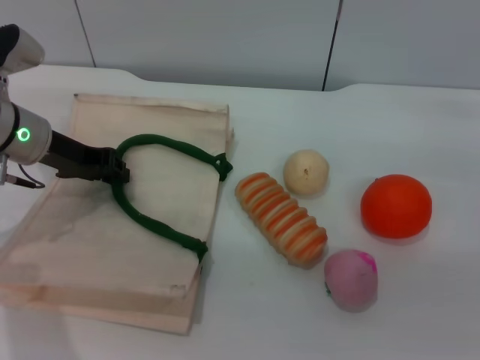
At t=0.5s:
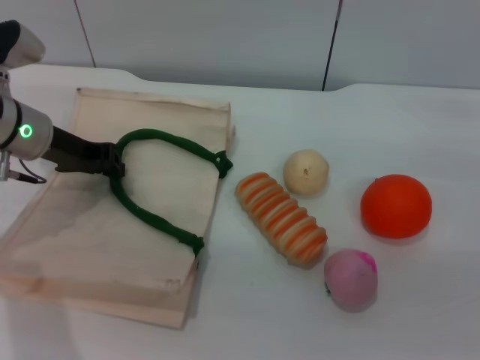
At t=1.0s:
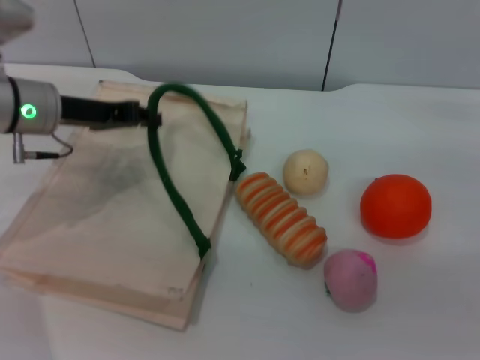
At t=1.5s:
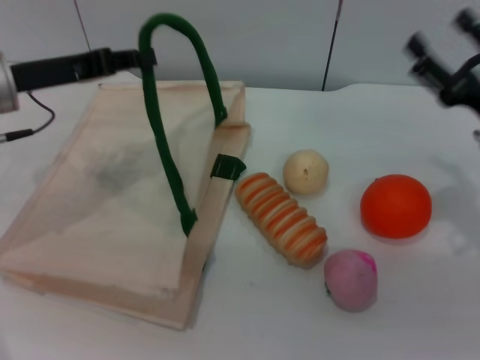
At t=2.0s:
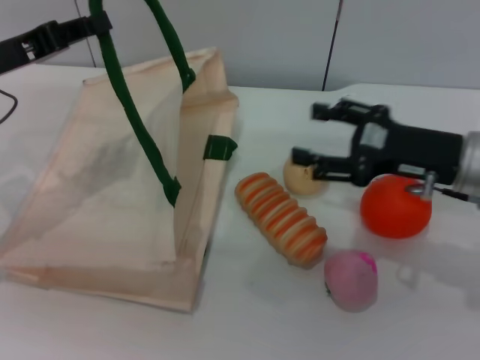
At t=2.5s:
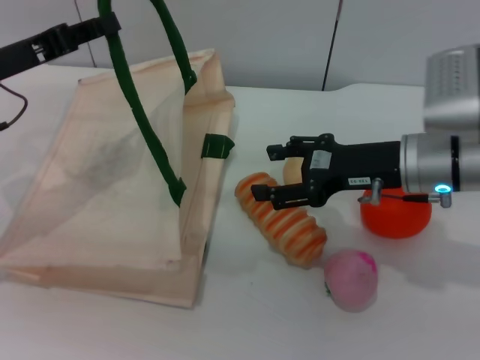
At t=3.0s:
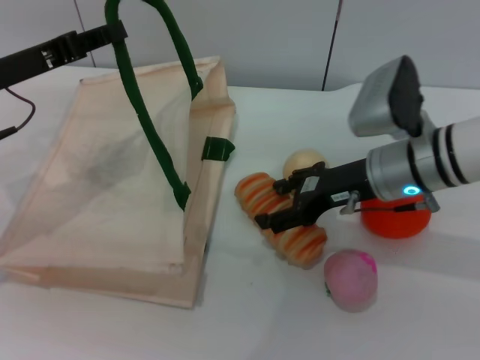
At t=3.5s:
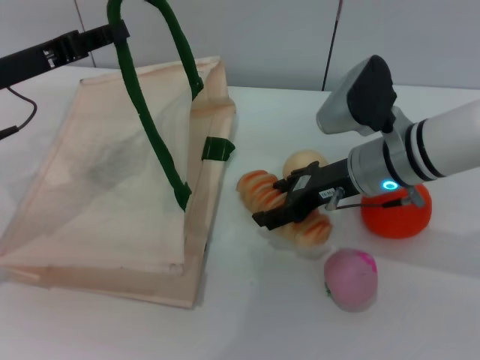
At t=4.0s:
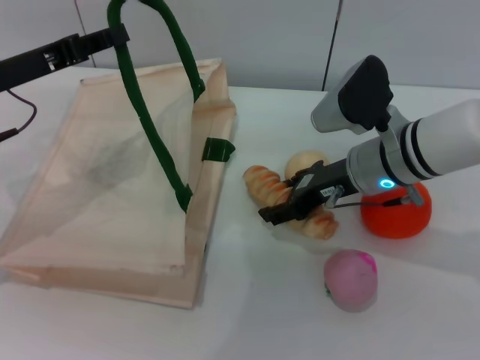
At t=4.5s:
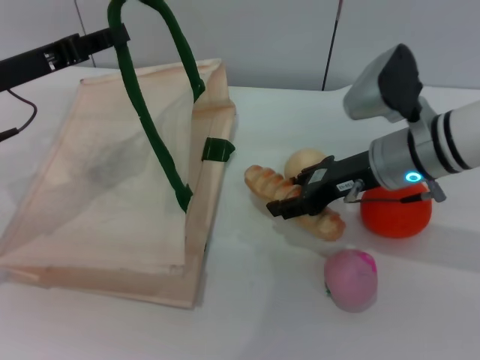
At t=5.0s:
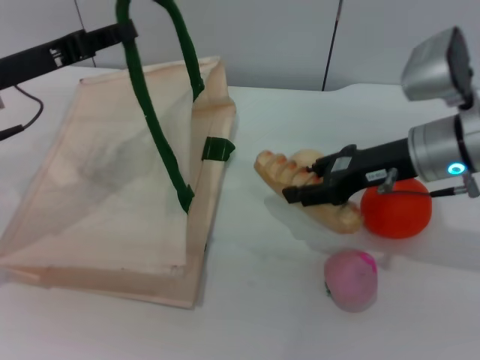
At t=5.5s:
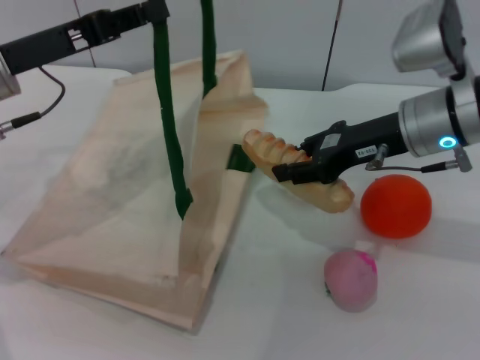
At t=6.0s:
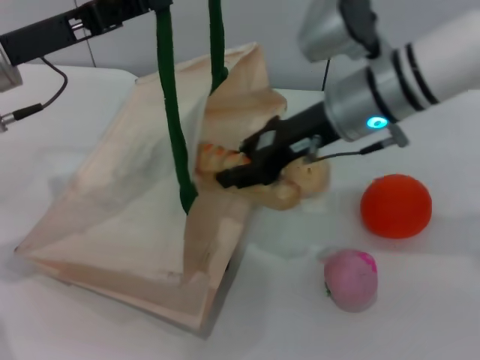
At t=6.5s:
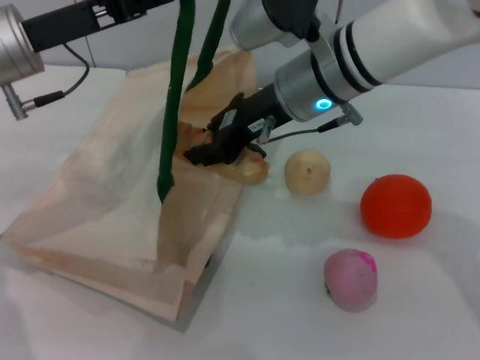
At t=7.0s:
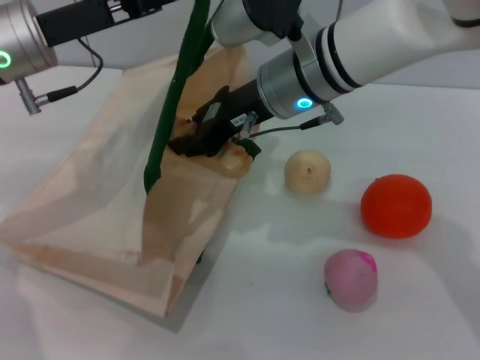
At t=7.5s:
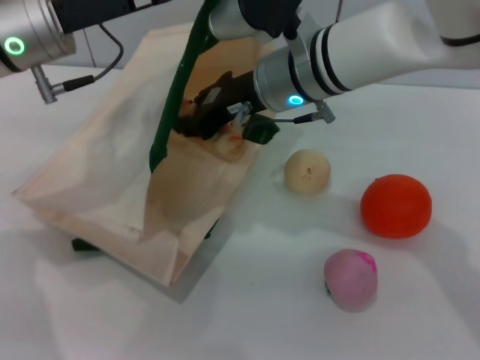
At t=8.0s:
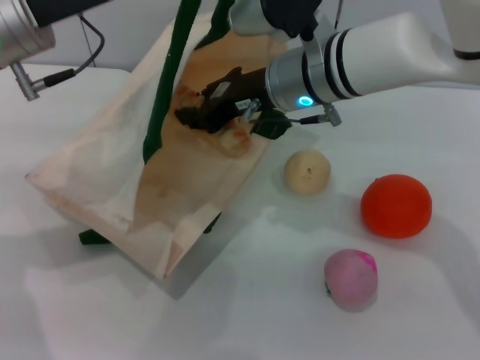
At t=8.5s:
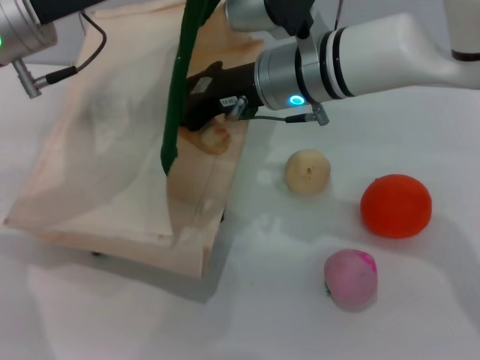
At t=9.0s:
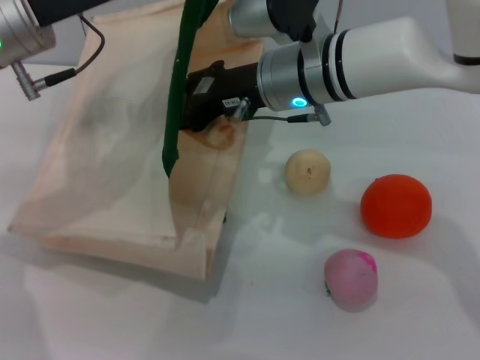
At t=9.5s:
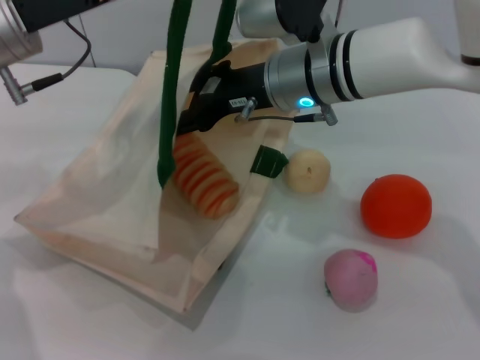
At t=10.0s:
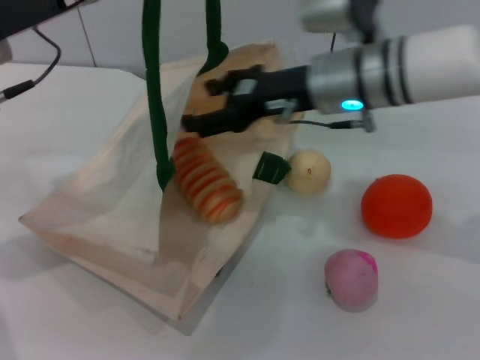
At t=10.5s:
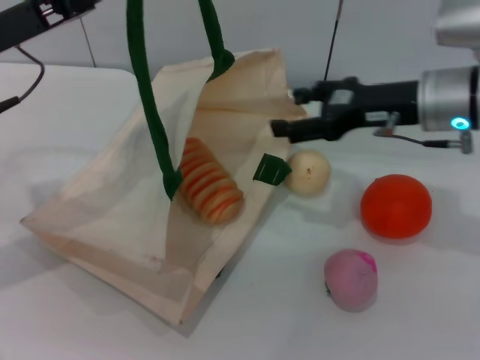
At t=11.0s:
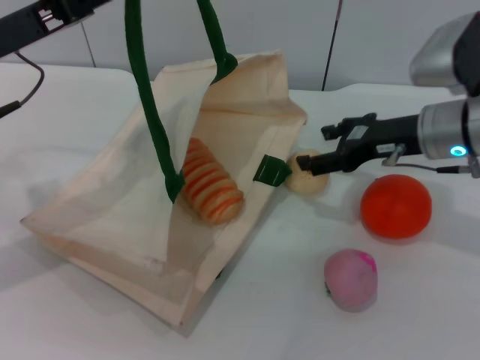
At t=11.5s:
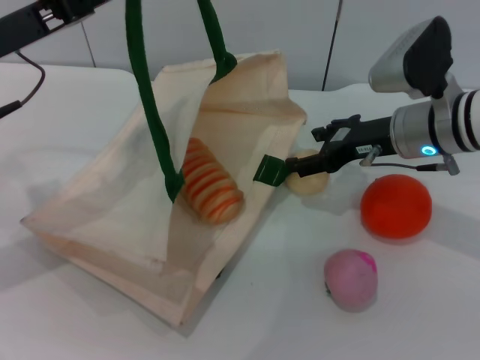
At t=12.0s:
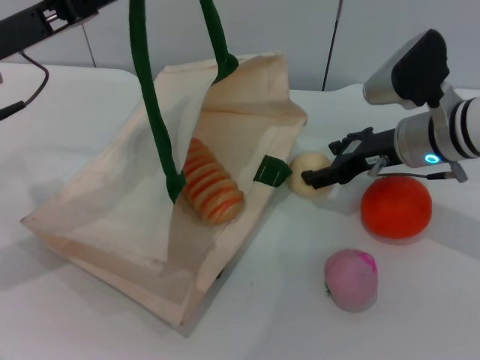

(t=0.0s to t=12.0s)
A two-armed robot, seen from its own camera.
Task of the whole recording: pick up the bread and egg yolk pastry from the table and place it in the white handbag.
Step, t=1.5s - t=4.5s: Pick up the bread with the right gripper.
Step, t=5.0s - t=9.5s: Place the bread into the woven bag with the right gripper.
t=0.0s - t=2.0s: The left gripper moves approximately 10 cm, and closes up, while the right gripper goes about 10 cm to the left.
t=2.0s - t=4.0s: The right gripper travels to the left by approximately 10 cm.
t=4.0s - t=6.0s: The right gripper travels upward by roughly 10 cm, and closes.
t=6.0s - t=8.0s: The right gripper travels to the left by some 5 cm.
t=8.0s - t=10.0s: The right gripper opens up.
t=10.0s - t=12.0s: The right gripper travels to the right and downward by some 10 cm.

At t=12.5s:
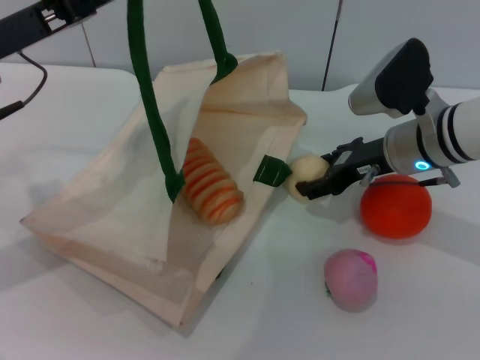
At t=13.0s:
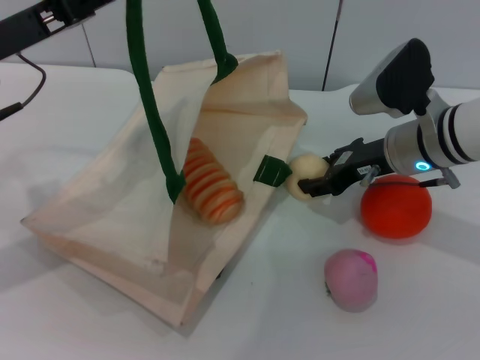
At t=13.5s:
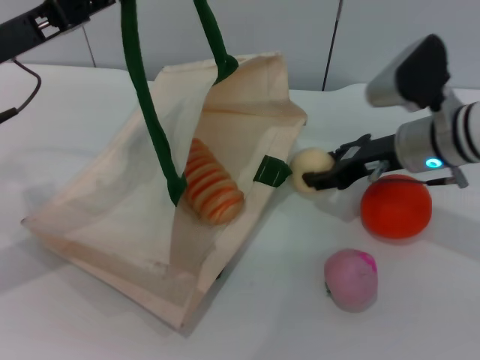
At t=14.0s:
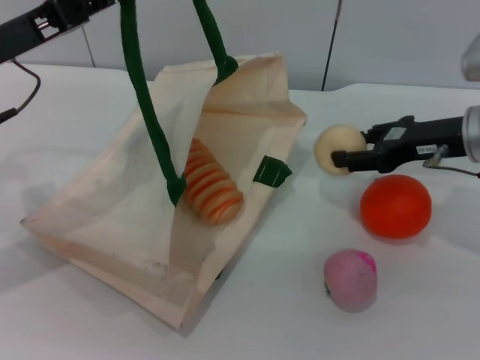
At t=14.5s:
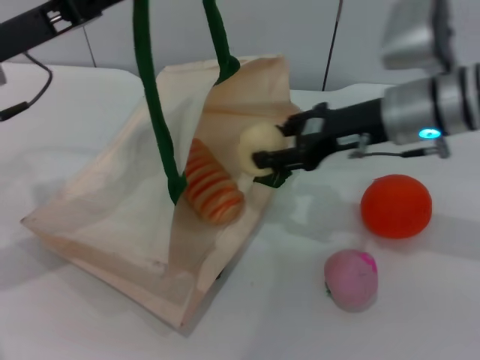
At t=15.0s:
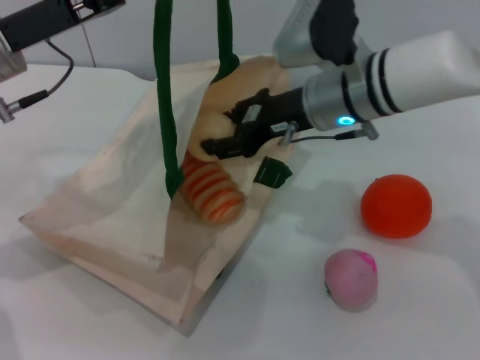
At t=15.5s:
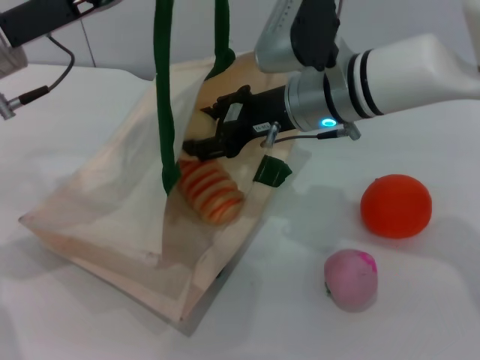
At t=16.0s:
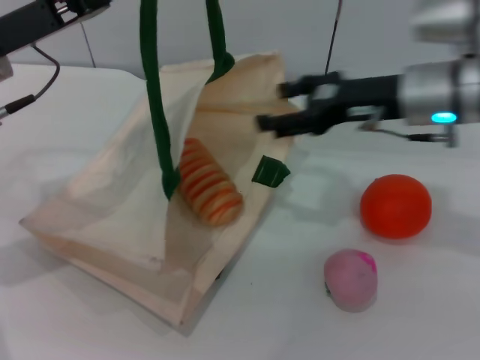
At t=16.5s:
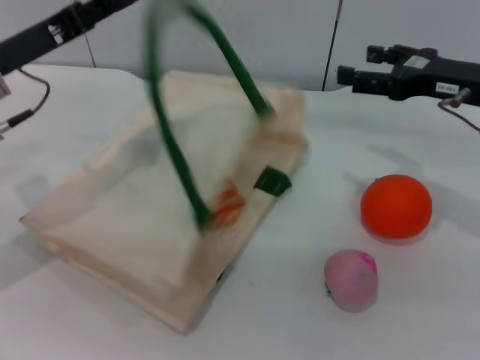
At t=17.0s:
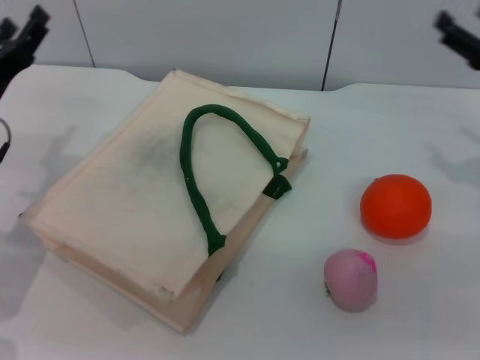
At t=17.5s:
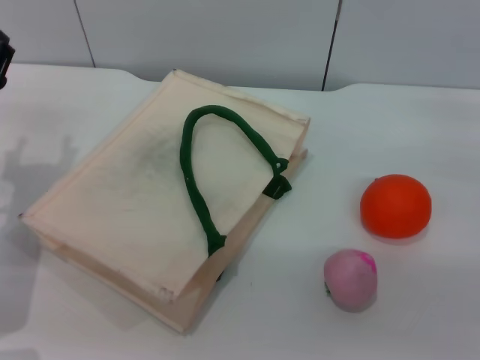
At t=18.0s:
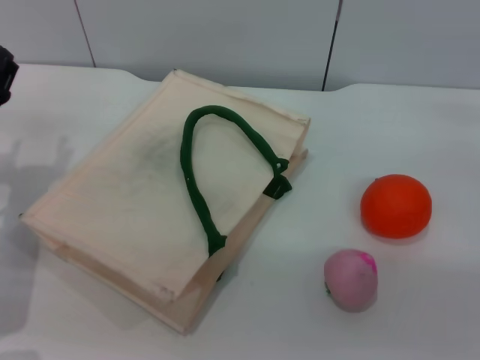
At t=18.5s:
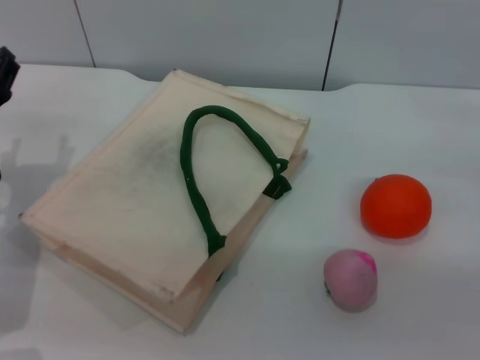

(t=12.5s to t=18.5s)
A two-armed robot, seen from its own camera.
Task of the whole recording: pick up the bread and egg yolk pastry from the table and place it in the white handbag.
Step, t=14.0s - t=16.0s: Place the egg yolk pastry into the woven bag with the right gripper.
t=12.5s - t=14.5s: The right gripper goes approximately 5 cm upward, goes to the right and returns, roughly 5 cm each way, and closes.
t=14.5s - t=16.5s: The right gripper goes roughly 10 cm to the right, and opens.
t=16.5s - t=18.5s: The right gripper is displaced to the right, downward and backward by roughly 15 cm; the left gripper moves downward, some 10 cm, and opens its fingers.
